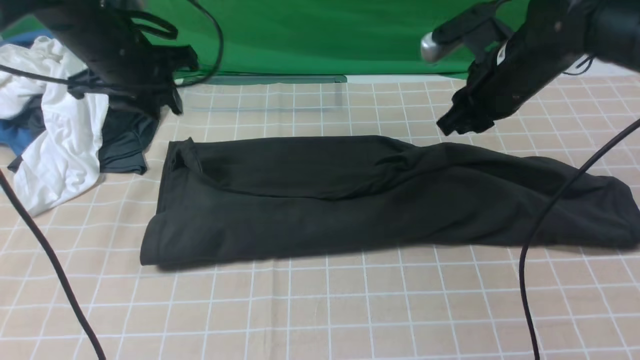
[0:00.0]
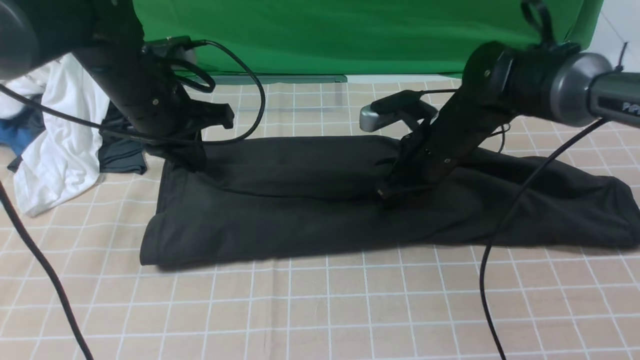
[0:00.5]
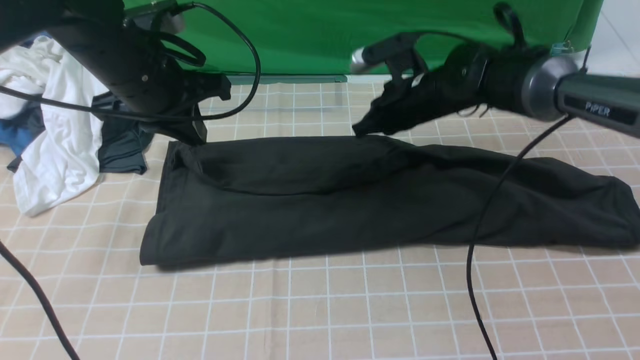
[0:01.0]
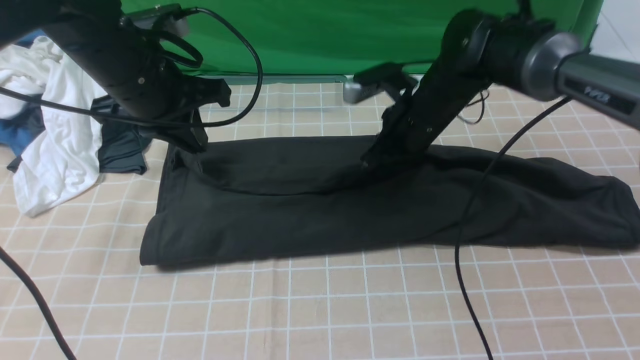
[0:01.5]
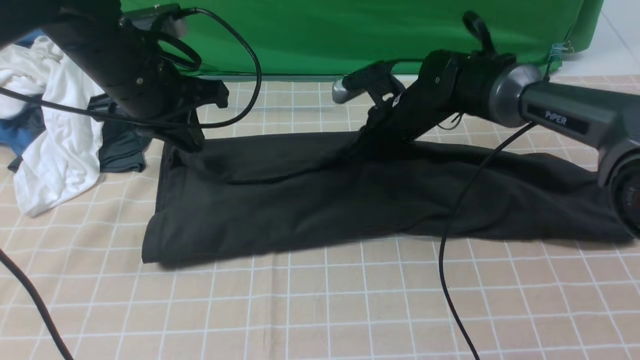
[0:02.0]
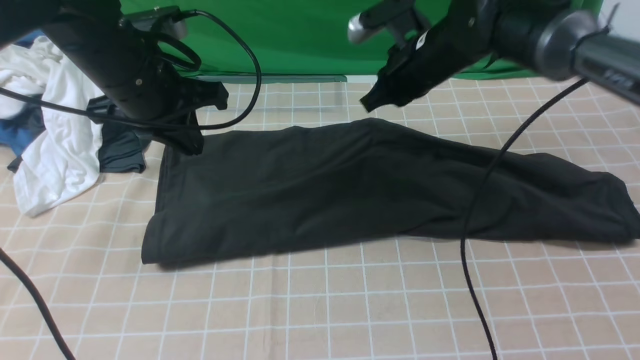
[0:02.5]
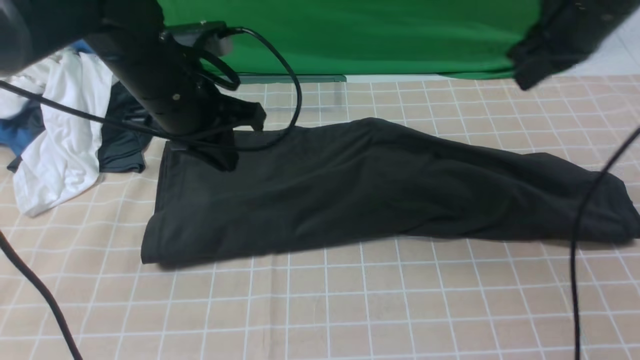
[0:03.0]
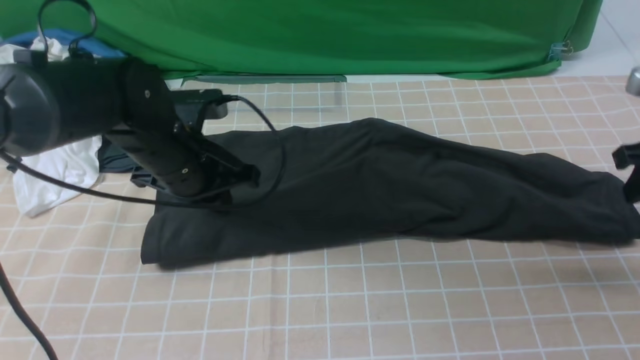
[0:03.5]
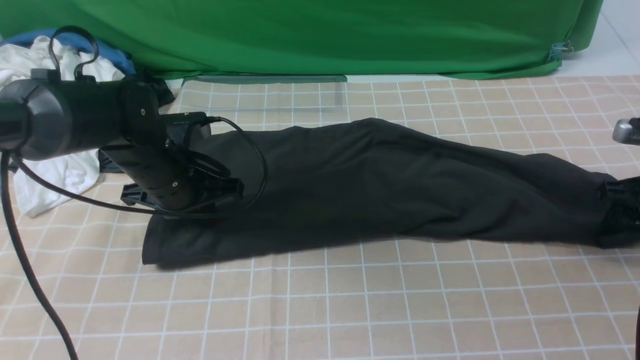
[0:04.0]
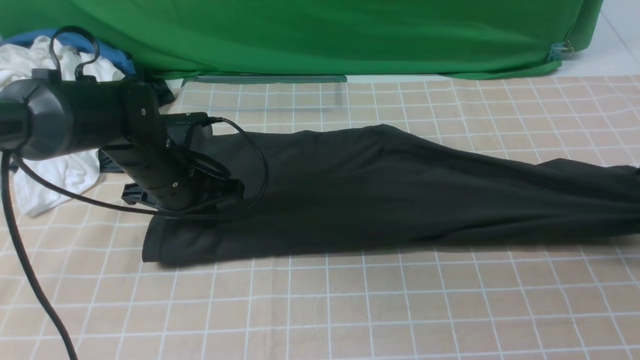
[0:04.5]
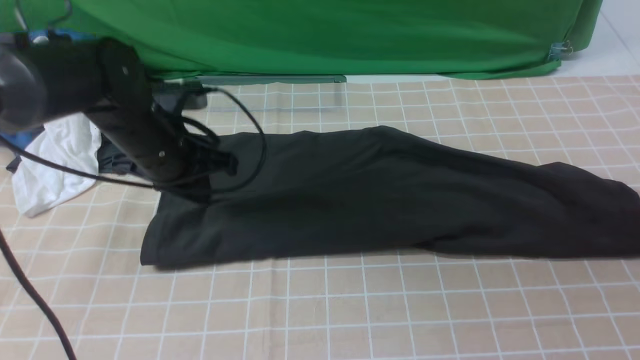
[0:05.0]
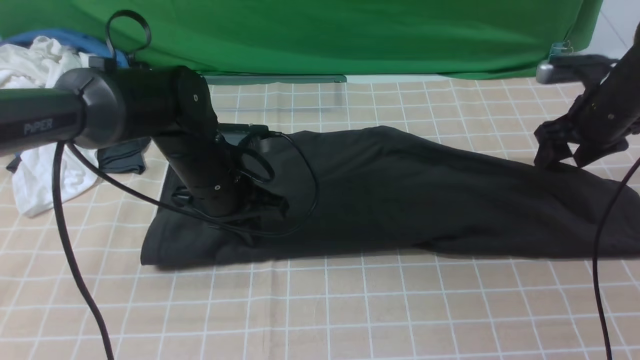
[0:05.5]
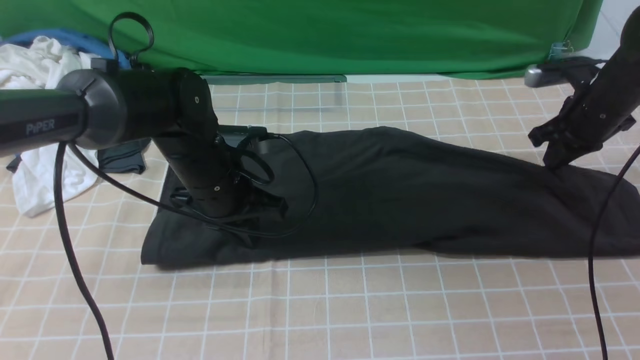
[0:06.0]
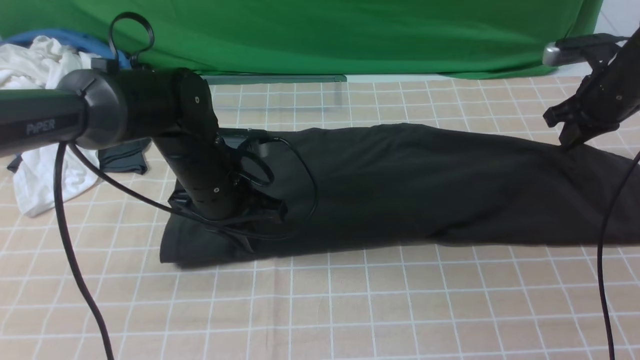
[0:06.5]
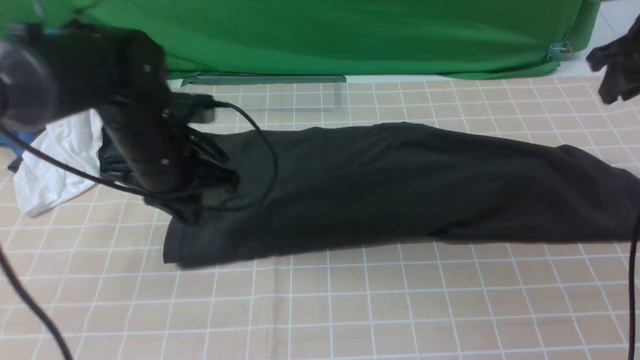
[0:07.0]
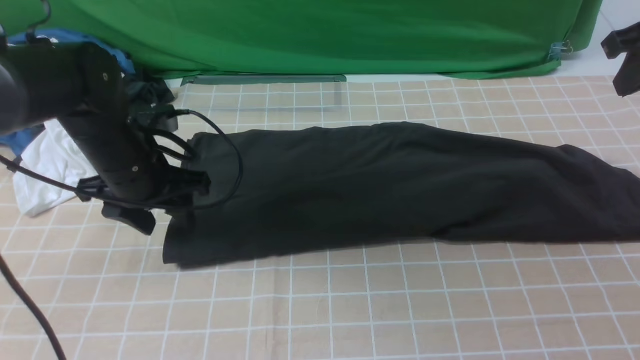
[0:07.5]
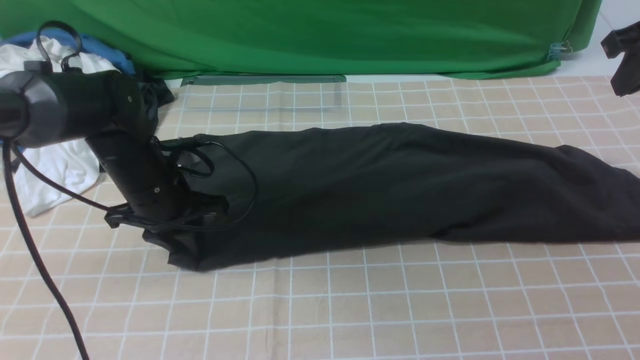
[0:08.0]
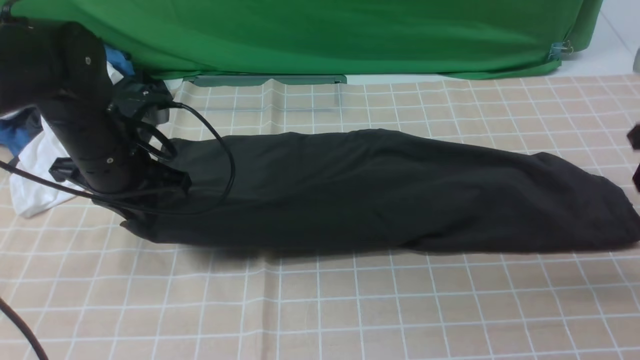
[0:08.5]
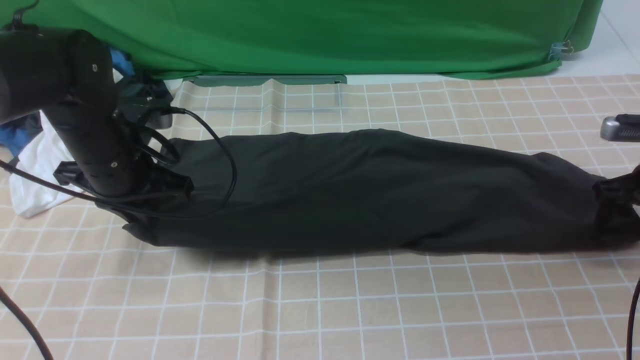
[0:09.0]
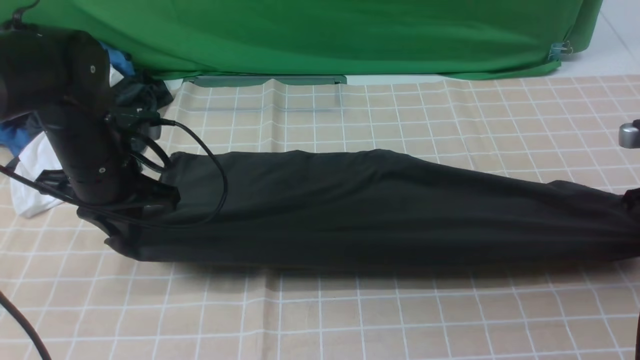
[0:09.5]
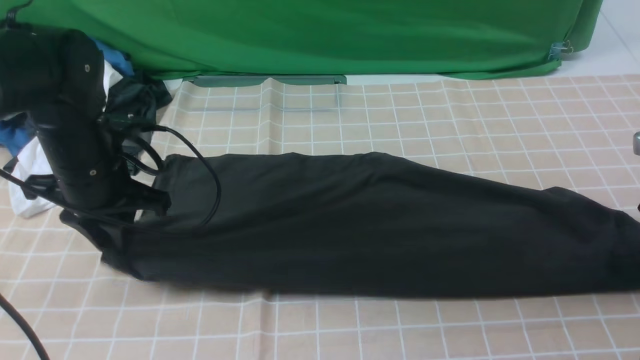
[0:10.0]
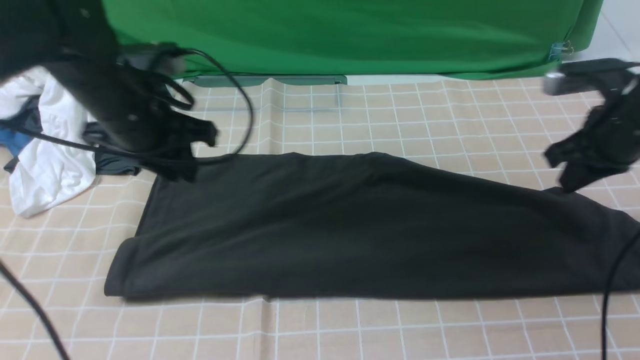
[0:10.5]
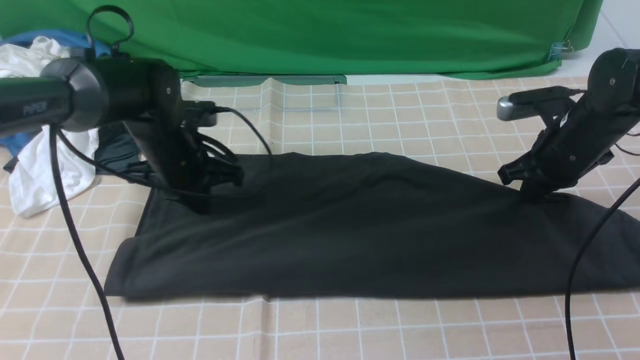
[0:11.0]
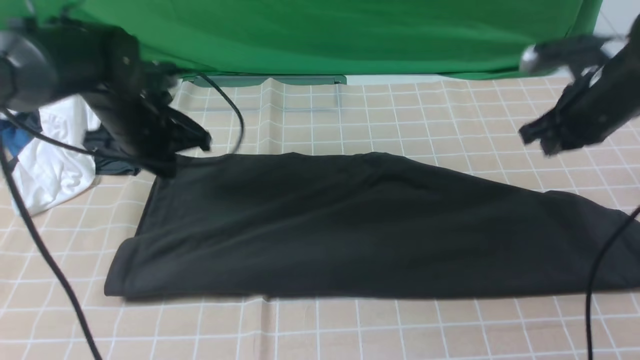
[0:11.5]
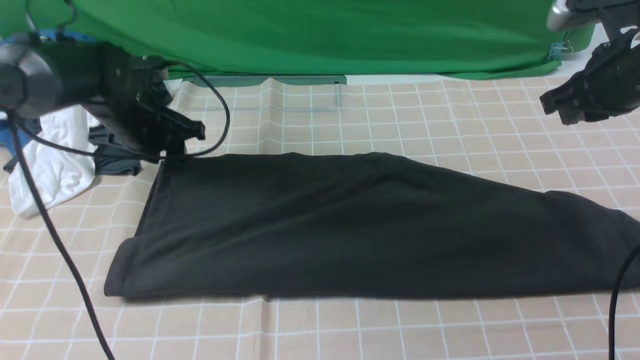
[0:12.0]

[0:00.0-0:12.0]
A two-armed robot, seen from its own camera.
0:00.0 to 0:02.0: The right gripper shifts some 15 cm downward, to the left and forward. Meanwhile the left gripper moves approximately 5 cm.
0:02.0 to 0:04.0: The left gripper moves downward, about 15 cm, while the right gripper heads to the right and backward, covering some 30 cm, and opens its fingers.
0:04.0 to 0:06.0: The left gripper shifts roughly 5 cm to the right, while the right gripper shifts some 10 cm forward and to the left, and closes.
0:06.0 to 0:08.0: The right gripper travels upward and backward by about 15 cm. Meanwhile the left gripper is displaced to the left by some 5 cm, and opens, then closes again.
0:08.0 to 0:10.0: The left gripper travels upward by roughly 5 cm; the right gripper goes approximately 15 cm downward and backward, and opens.
0:10.0 to 0:12.0: The left gripper is displaced forward and downward by approximately 10 cm, and closes, then opens again; the right gripper travels to the left and upward by some 15 cm, and closes up.

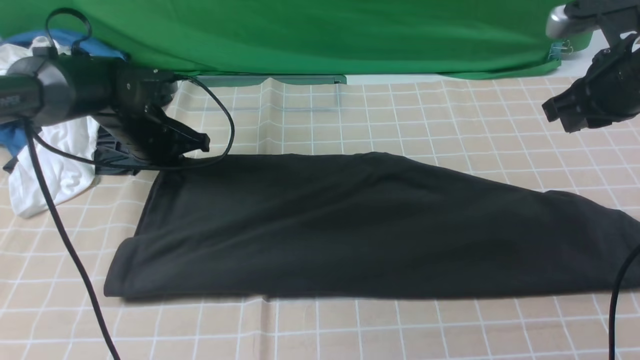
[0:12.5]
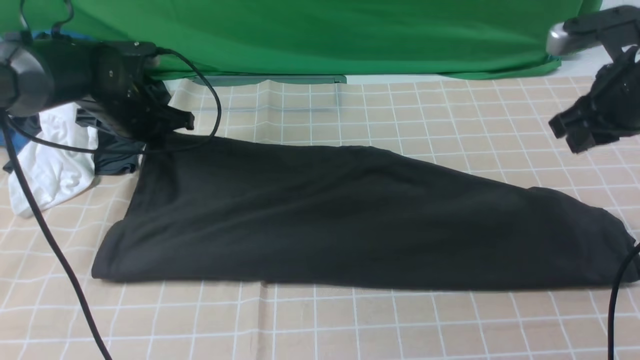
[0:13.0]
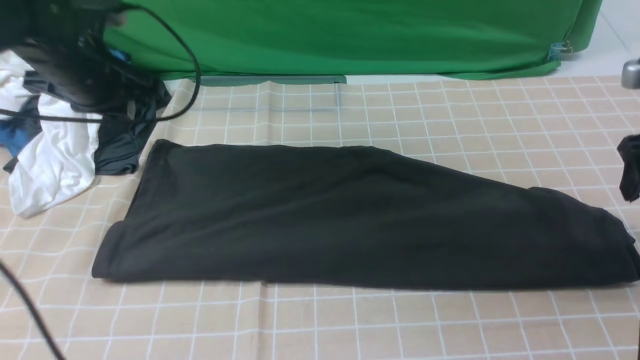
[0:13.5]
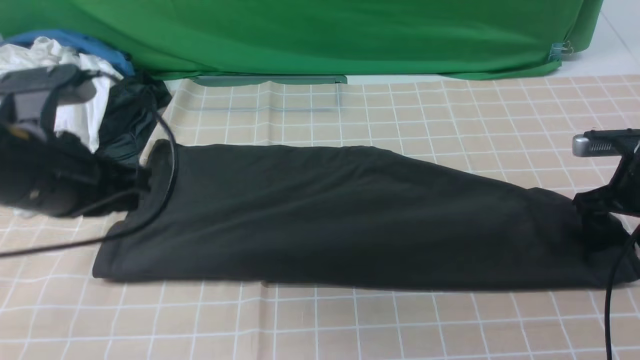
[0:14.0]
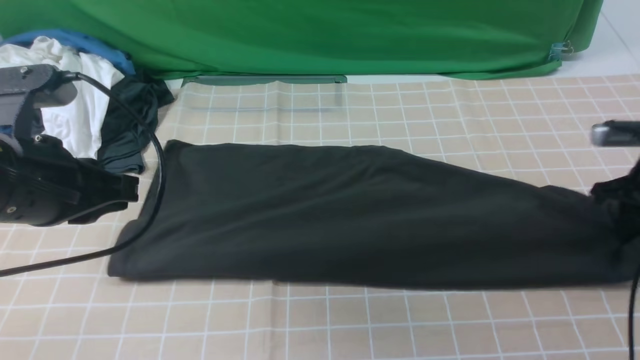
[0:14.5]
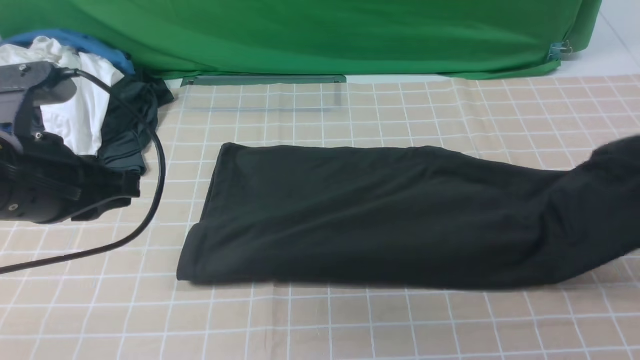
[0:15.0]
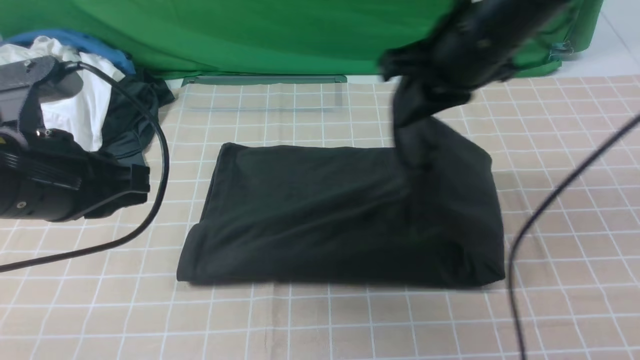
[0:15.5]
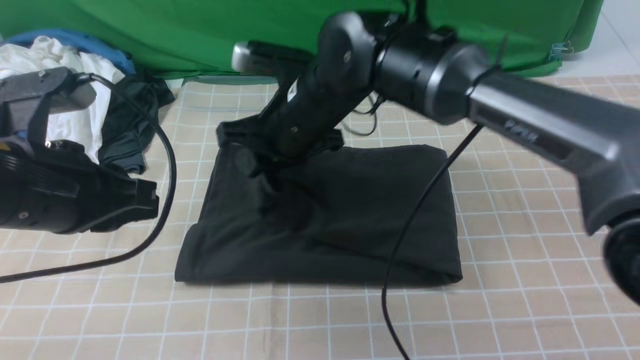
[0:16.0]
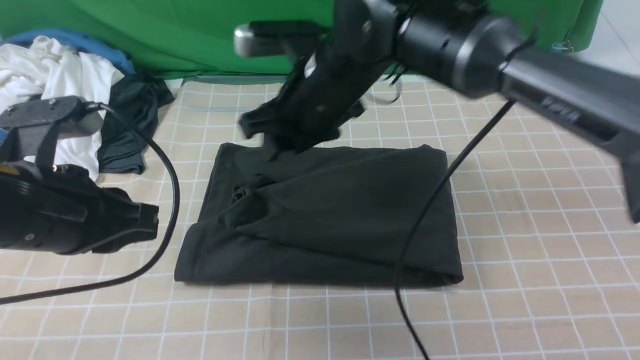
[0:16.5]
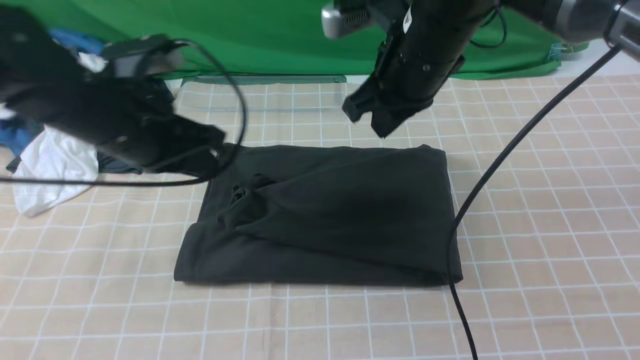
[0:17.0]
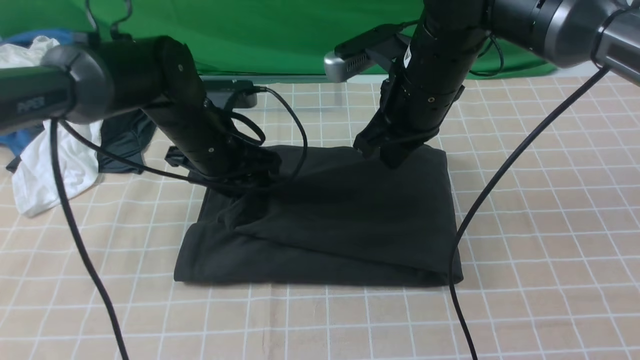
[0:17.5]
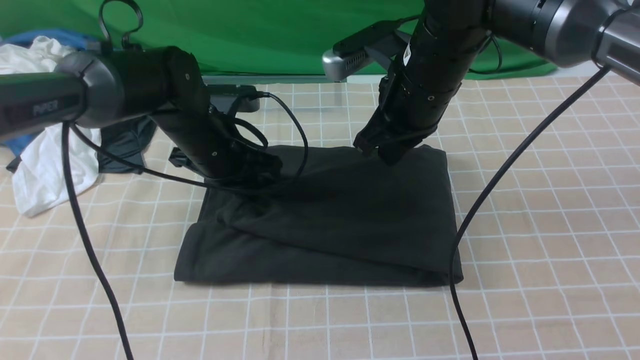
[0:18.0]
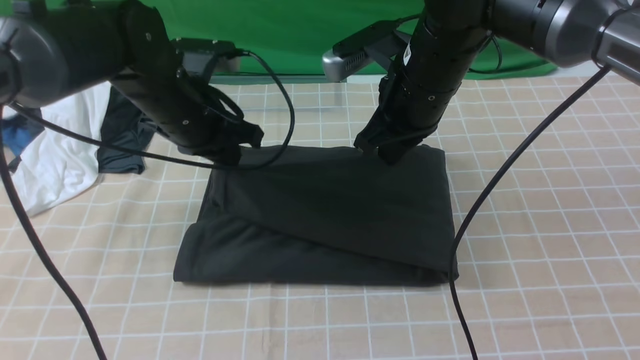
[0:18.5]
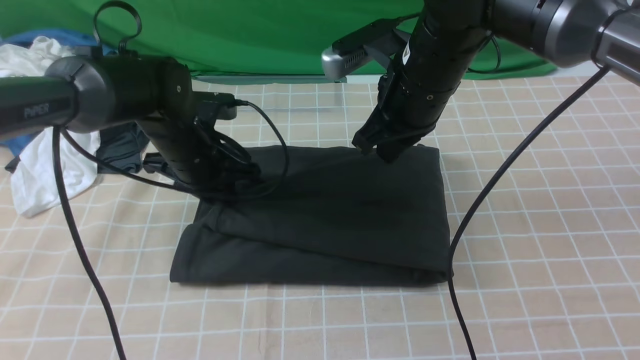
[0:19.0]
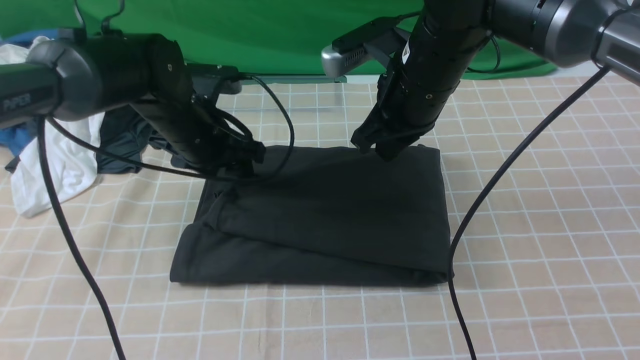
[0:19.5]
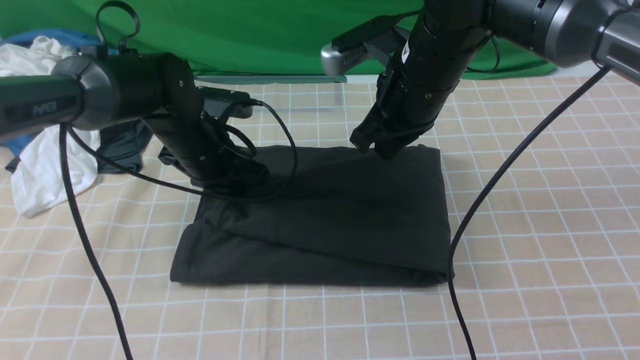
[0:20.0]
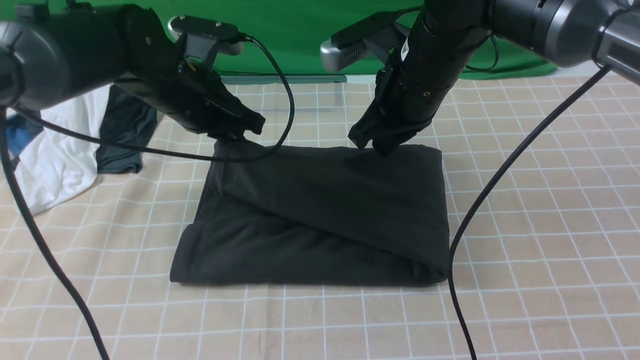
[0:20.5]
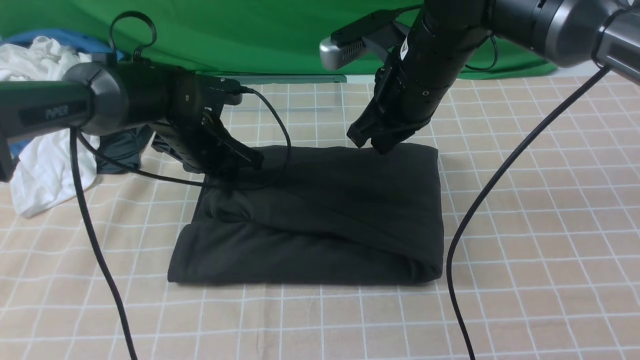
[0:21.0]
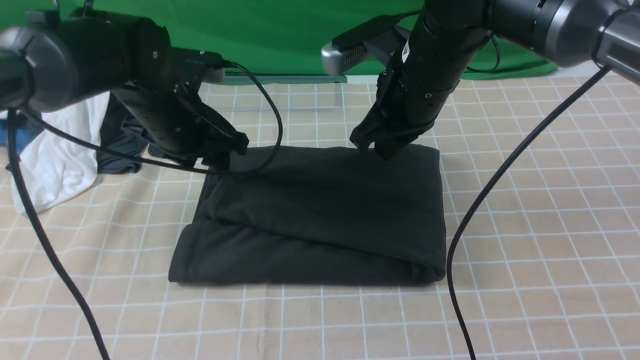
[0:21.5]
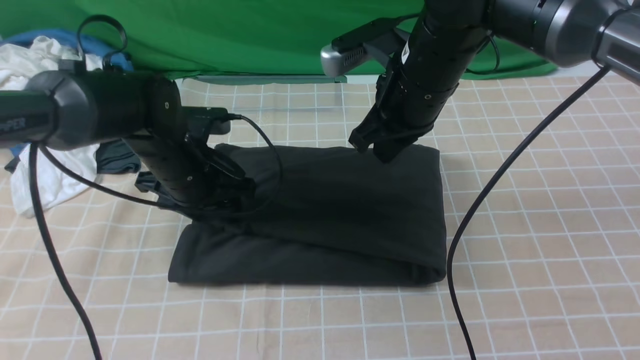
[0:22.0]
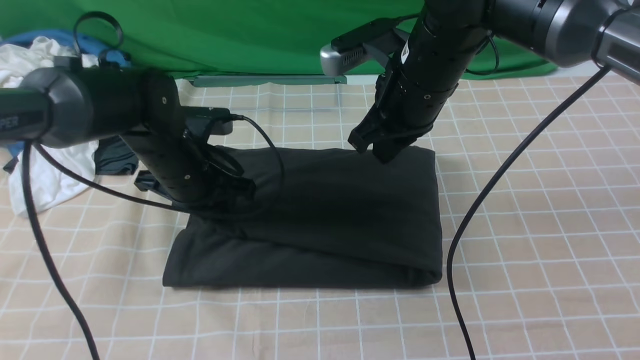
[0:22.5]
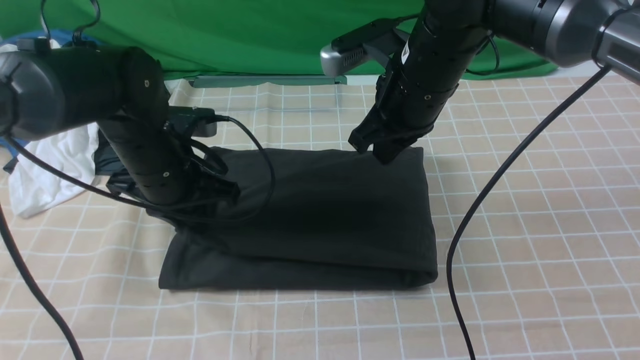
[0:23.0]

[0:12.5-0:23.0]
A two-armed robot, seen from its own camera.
Step, 0:14.5 to 0:16.5: use the right arm to drag the right edge of the fabric to the left and folds it over the left edge.
0:12.5 to 0:14.5: The left gripper is displaced backward and upward by about 25 cm. The right gripper goes some 15 cm to the right and downward, and opens and closes again.
0:14.5 to 0:16.5: The right gripper heads to the left, covering roughly 35 cm.
0:16.5 to 0:19.0: The right gripper goes approximately 10 cm to the right, and closes up, while the left gripper heads forward and downward, covering roughly 20 cm, and opens its fingers.
0:19.0 to 0:21.0: The left gripper closes, then opens again.
0:21.0 to 0:23.0: The left gripper heads backward, covering some 5 cm, and closes up.
